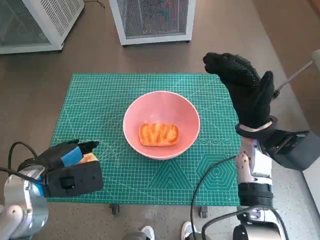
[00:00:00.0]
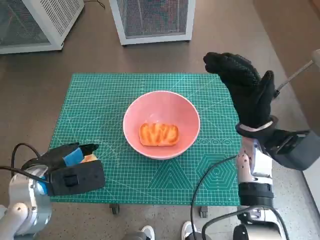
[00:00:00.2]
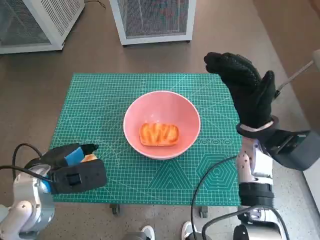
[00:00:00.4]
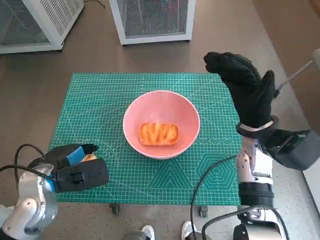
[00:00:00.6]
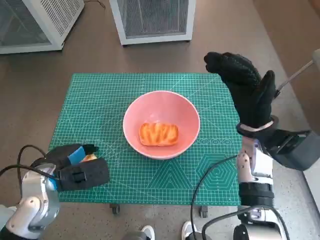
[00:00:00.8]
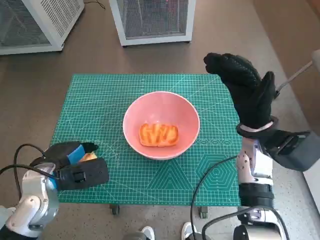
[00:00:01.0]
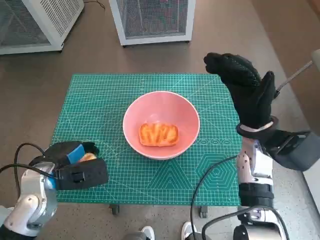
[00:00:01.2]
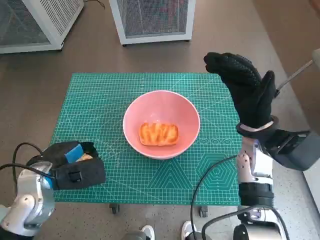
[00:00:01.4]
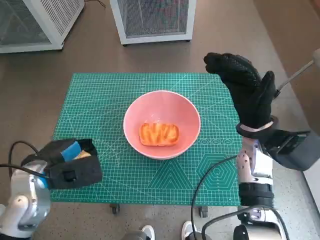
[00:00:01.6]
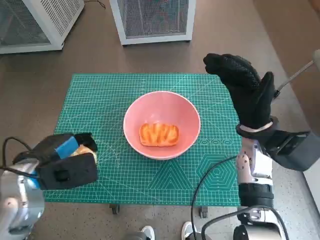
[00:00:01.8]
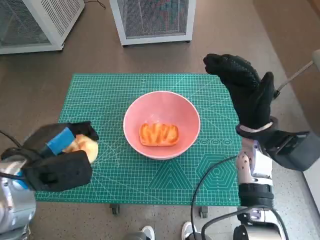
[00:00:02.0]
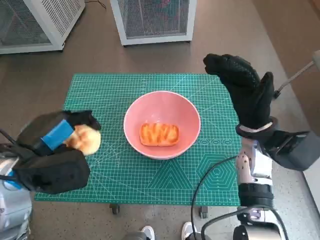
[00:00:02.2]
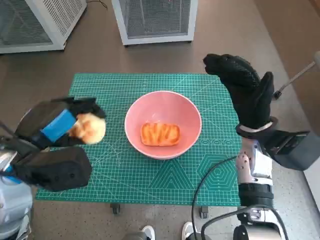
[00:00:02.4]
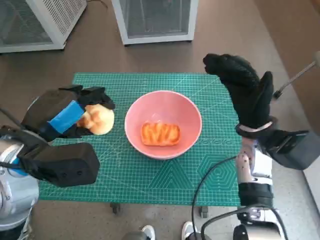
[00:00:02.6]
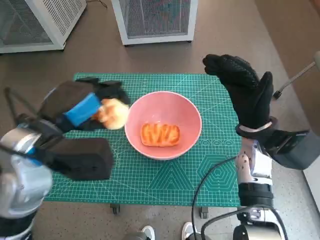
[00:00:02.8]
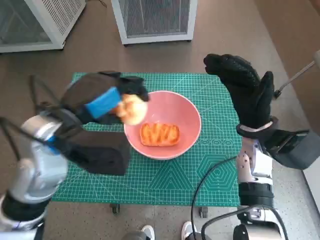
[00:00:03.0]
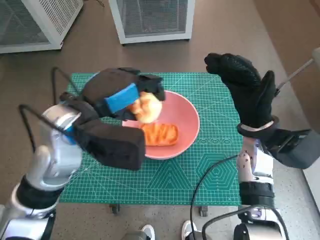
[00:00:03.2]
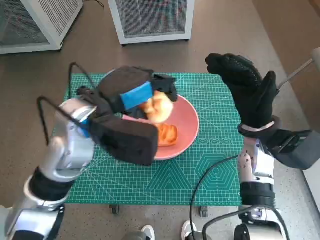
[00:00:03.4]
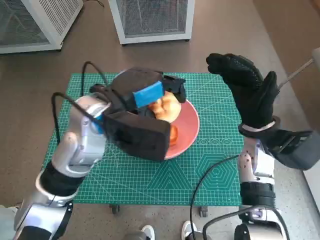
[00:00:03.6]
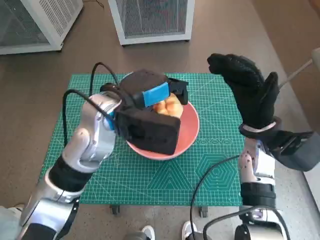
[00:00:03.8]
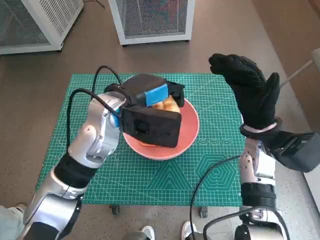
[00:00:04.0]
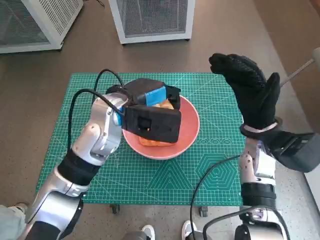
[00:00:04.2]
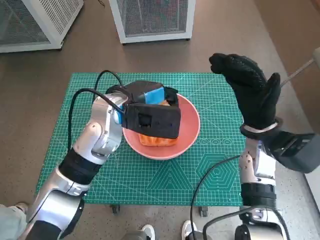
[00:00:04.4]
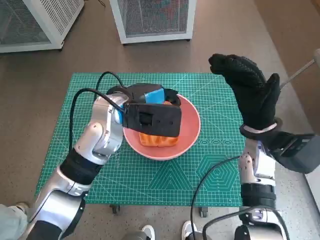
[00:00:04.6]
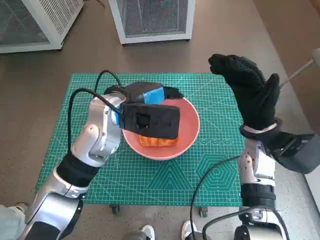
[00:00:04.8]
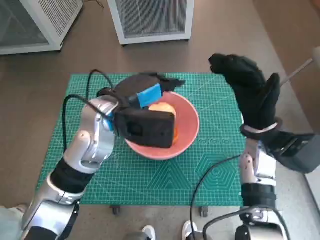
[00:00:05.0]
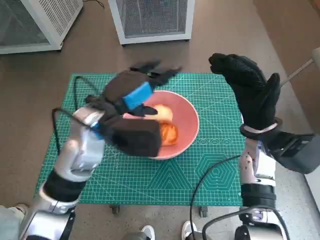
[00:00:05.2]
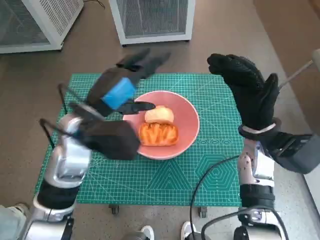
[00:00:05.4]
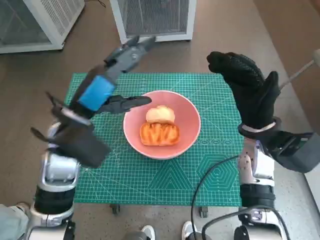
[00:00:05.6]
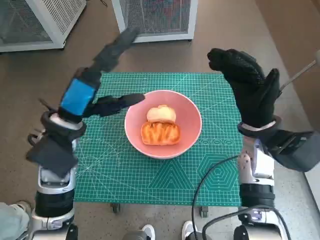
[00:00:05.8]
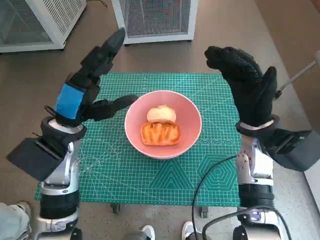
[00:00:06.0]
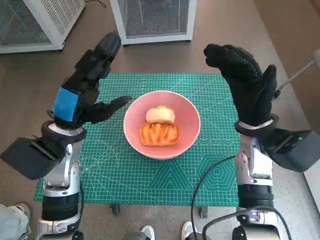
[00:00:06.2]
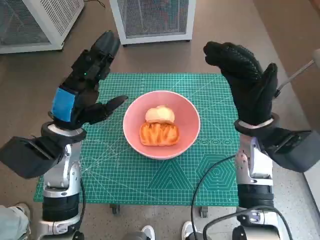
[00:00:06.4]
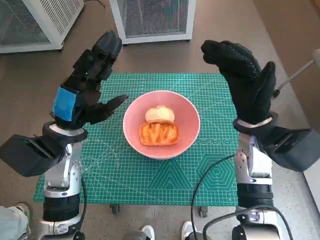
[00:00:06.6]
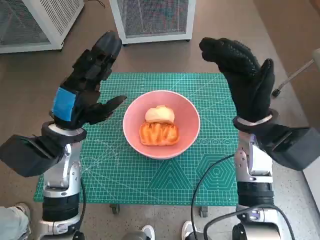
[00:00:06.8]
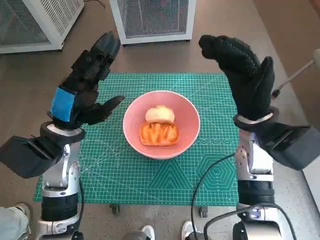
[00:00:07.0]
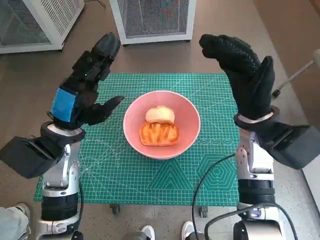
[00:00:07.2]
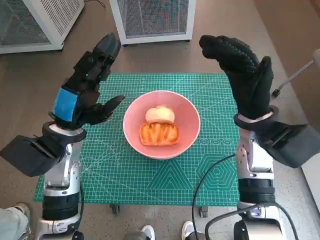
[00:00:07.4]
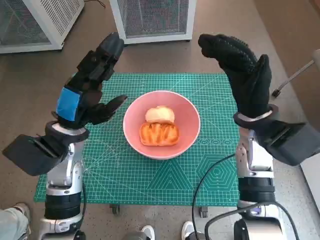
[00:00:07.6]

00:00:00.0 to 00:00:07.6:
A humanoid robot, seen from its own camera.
Task of the whole recording: Push the bowl into the center of the table and put the bread into the bowl.
Step, 00:00:01.0 to 00:00:04.6: Place the round bread in pink bowl with left hand.
00:00:00.0 to 00:00:01.6: The hands make only small movements.
00:00:01.6 to 00:00:03.0: The left hand travels upward and to the right by roughly 15 cm.
00:00:03.0 to 00:00:04.6: The left hand moves forward and to the right, some 10 cm.
00:00:04.6 to 00:00:06.0: The left hand travels to the left and backward by about 10 cm.
00:00:06.0 to 00:00:07.6: There are only small adjustments of the hands.
